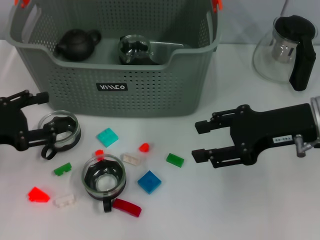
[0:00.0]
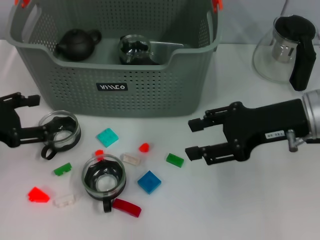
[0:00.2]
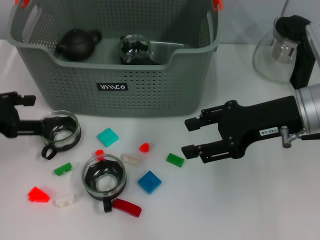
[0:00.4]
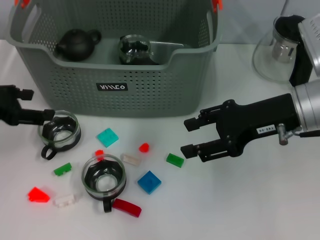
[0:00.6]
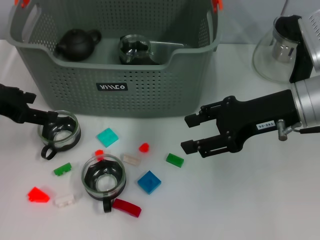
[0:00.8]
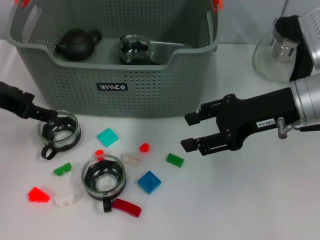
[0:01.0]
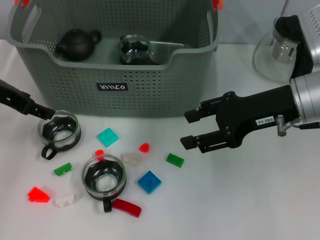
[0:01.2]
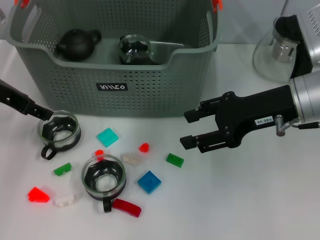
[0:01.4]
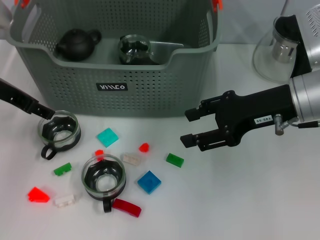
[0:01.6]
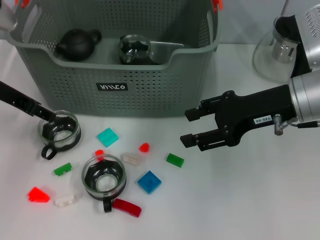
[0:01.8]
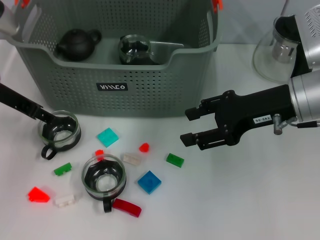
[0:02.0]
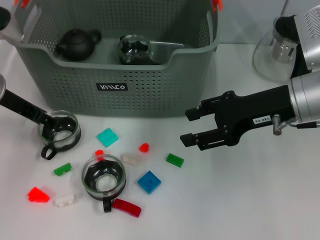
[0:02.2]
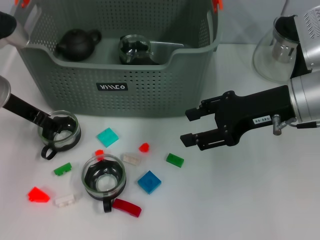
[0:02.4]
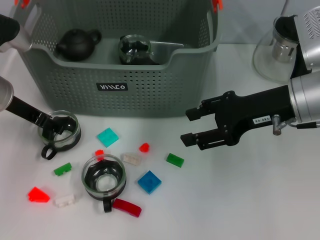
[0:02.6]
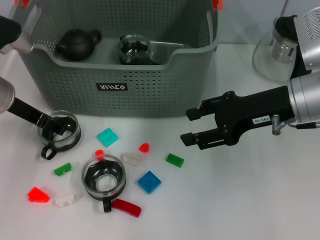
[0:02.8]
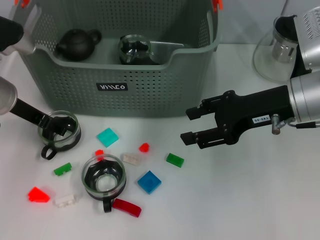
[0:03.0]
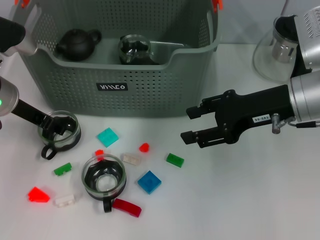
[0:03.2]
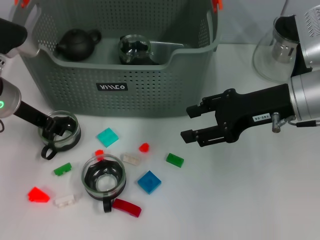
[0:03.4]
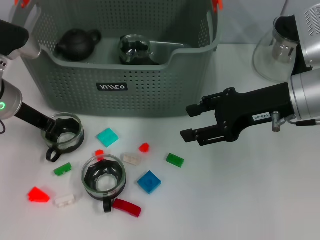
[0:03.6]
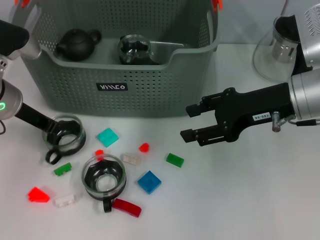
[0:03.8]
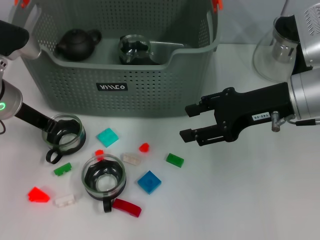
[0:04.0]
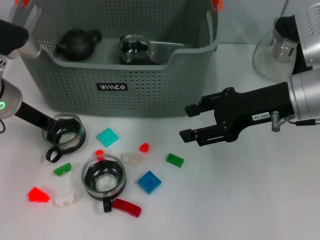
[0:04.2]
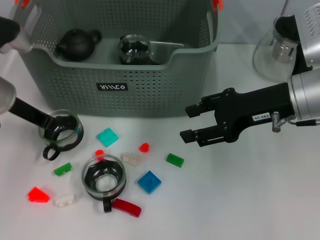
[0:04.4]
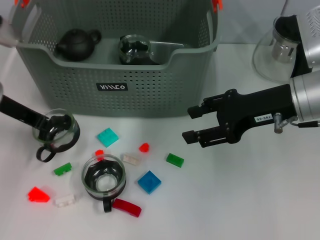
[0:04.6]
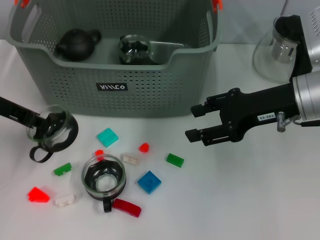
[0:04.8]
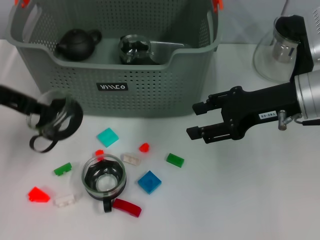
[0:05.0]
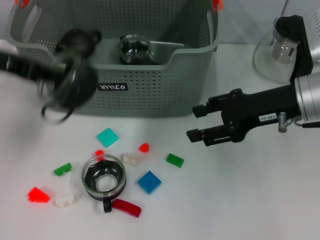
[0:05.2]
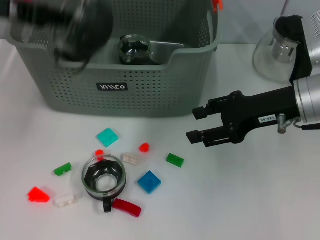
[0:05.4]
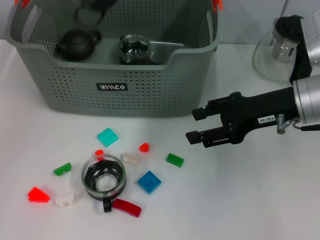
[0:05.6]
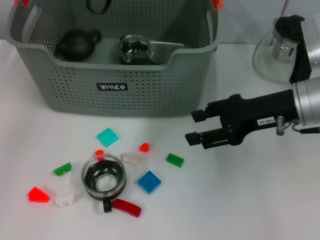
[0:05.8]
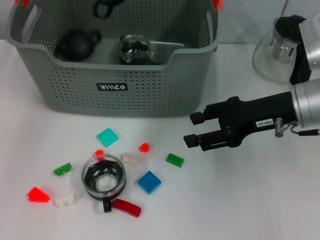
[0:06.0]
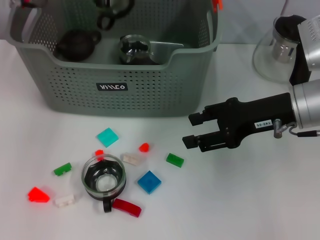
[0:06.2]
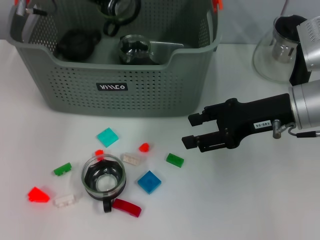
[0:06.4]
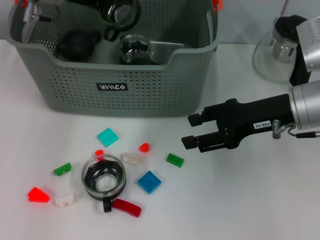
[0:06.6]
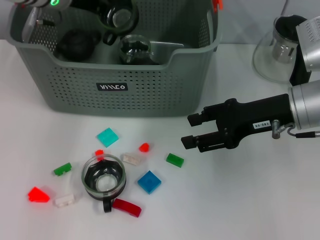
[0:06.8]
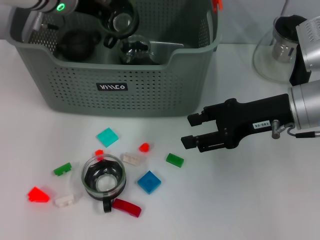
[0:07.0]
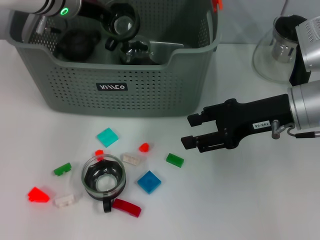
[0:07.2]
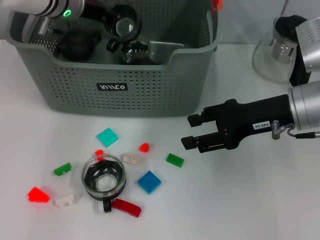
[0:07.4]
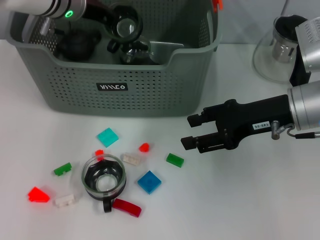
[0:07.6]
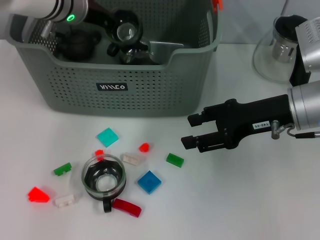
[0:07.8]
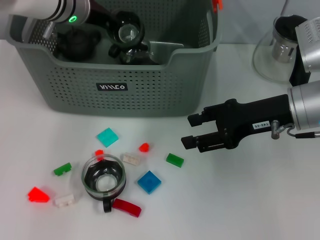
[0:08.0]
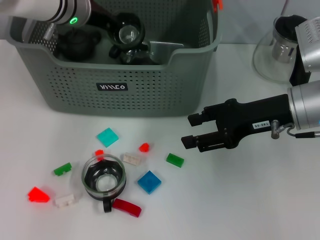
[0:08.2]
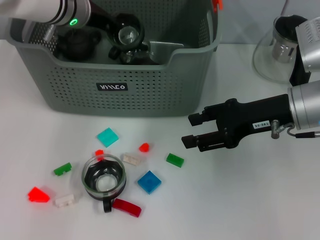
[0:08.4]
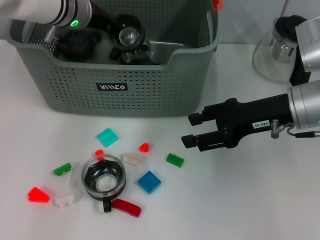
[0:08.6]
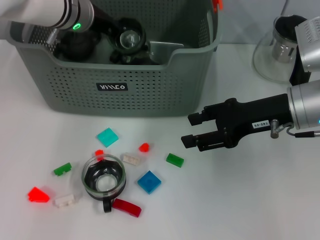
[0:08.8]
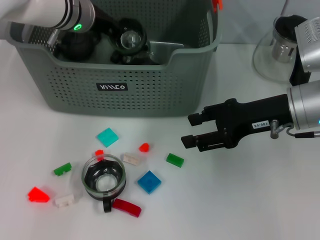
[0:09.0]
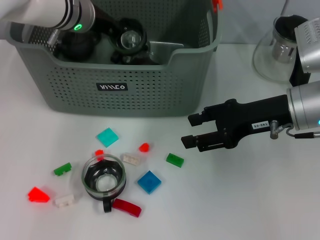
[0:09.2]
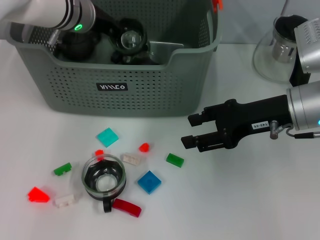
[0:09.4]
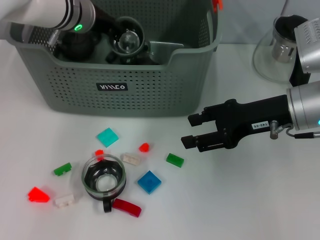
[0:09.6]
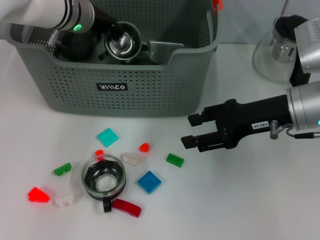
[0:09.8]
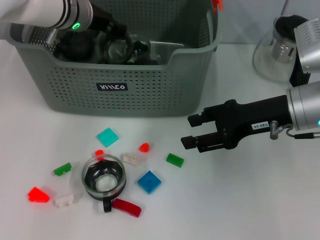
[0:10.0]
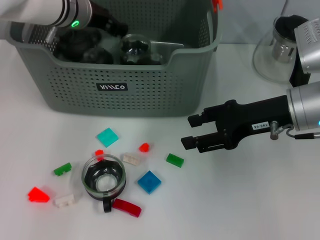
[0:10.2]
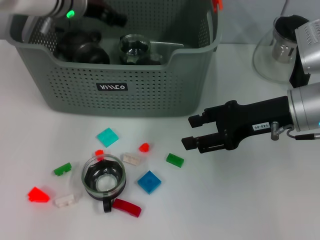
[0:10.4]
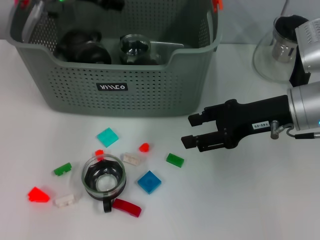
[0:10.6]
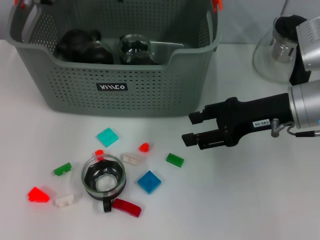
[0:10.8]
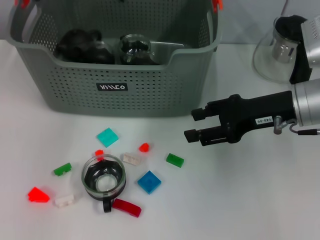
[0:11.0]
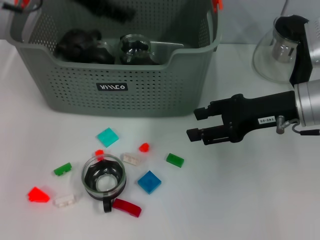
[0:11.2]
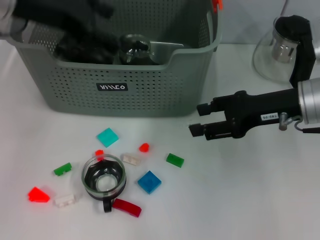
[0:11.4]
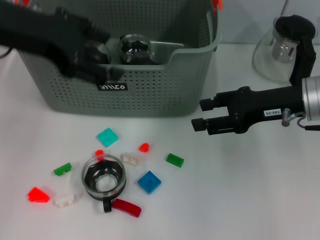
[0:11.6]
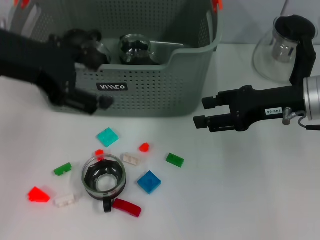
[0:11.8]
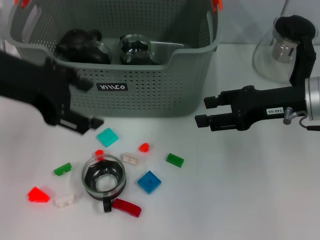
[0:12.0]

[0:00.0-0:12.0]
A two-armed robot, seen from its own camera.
Task of the whole recording: pick up the teacup on the table and place it into the storage bin, pick up the block on the table and place it into the storage bin.
Step, 0.0 to 4.0 s: Grasp the cup with left gripper.
Step, 4.2 to 10.6 s: Place the cup in the storage box with left gripper.
0.0 to 1.6 s: The left gripper heads forward, upward and to the right, covering approximately 15 cm.
1.6 to 3.0 s: The left gripper goes some 5 cm downward.
3.0 to 4.4 s: The left gripper closes up.
4.4 to 6.0 s: The left gripper shifts roughly 15 cm upward and forward.
6.0 to 7.6 s: The left gripper heads downward and to the right, covering about 10 cm.
7.6 to 9.0 s: There are only small adjustments of the grippers.
9.0 to 10.4 s: The left gripper opens up.
10.4 to 12.0 s: The left gripper travels backward by roughly 20 cm.

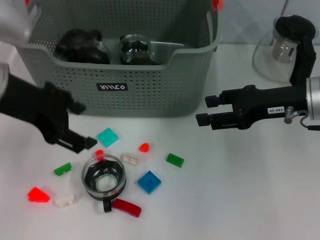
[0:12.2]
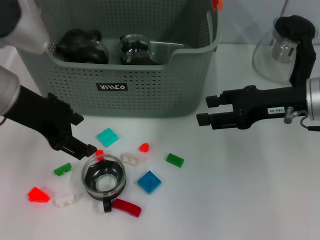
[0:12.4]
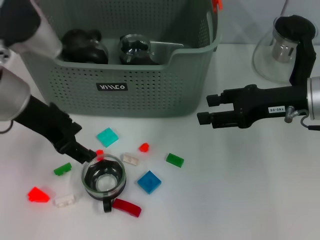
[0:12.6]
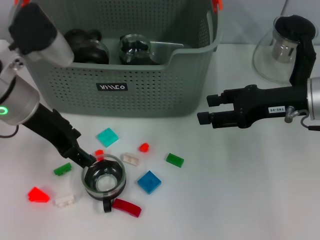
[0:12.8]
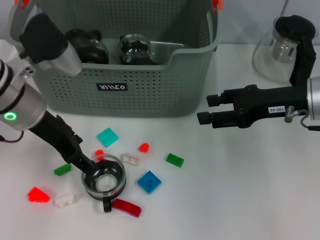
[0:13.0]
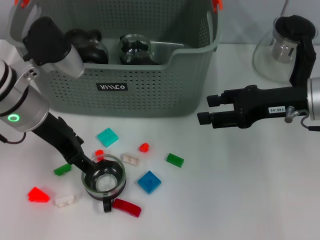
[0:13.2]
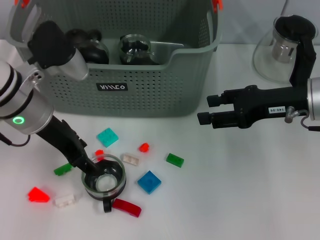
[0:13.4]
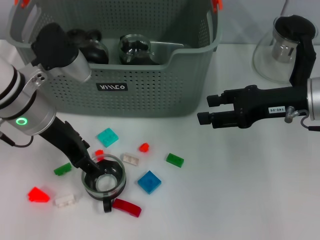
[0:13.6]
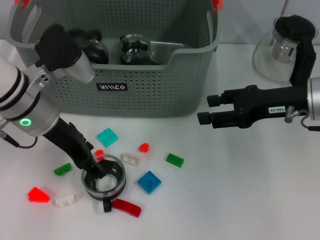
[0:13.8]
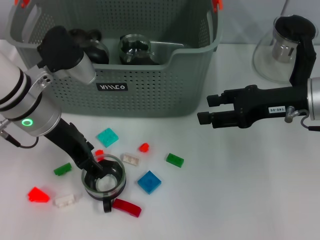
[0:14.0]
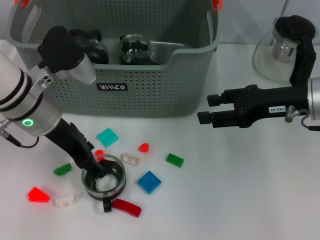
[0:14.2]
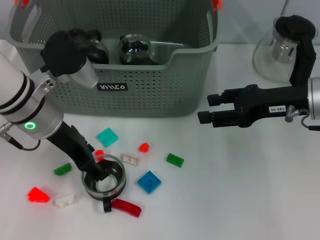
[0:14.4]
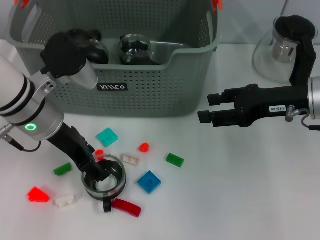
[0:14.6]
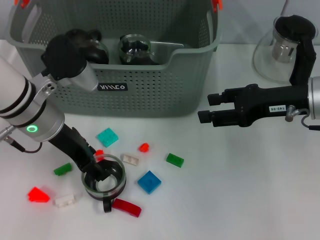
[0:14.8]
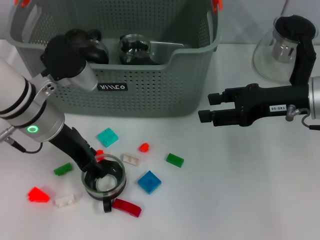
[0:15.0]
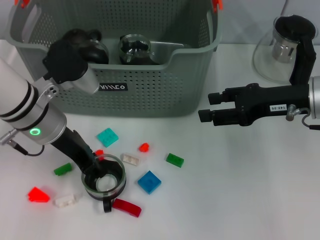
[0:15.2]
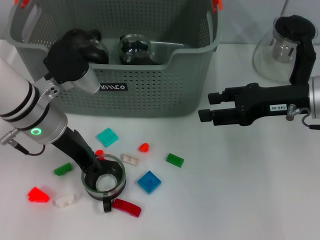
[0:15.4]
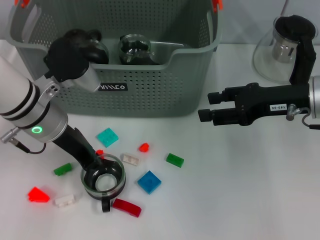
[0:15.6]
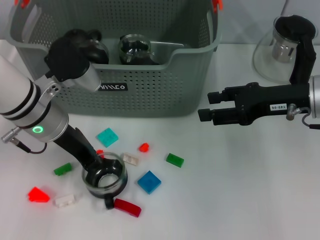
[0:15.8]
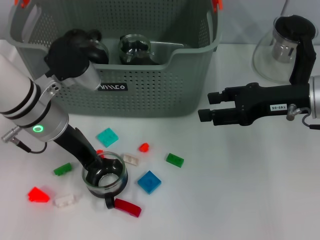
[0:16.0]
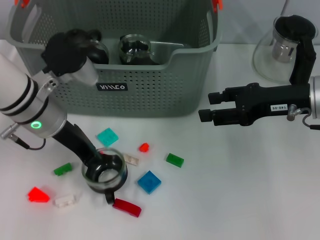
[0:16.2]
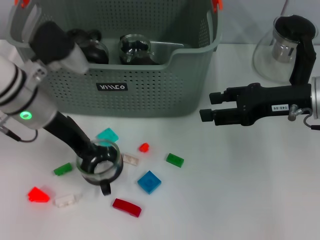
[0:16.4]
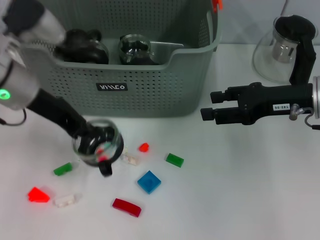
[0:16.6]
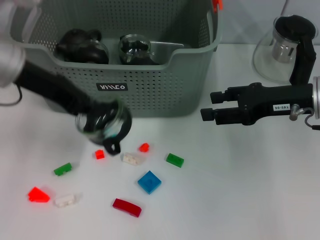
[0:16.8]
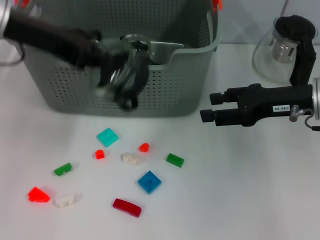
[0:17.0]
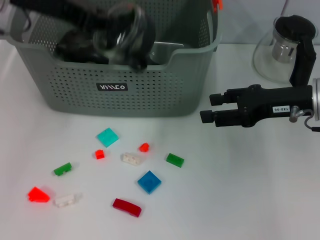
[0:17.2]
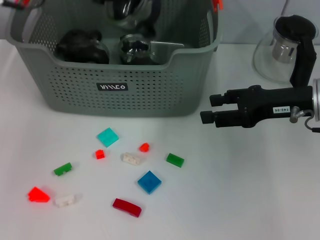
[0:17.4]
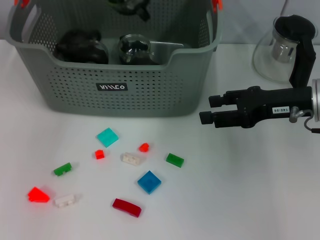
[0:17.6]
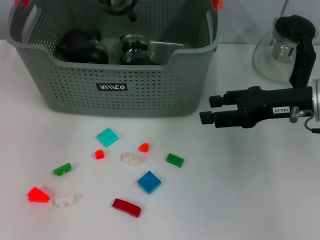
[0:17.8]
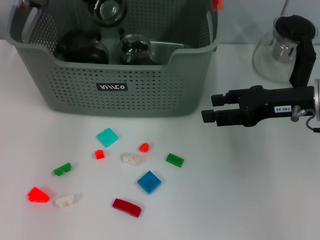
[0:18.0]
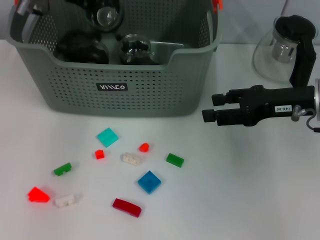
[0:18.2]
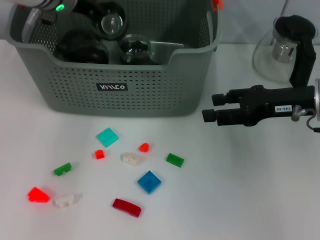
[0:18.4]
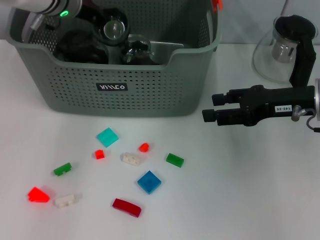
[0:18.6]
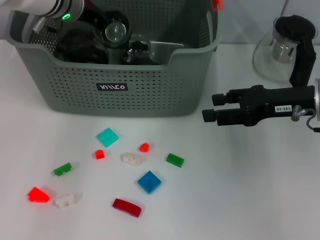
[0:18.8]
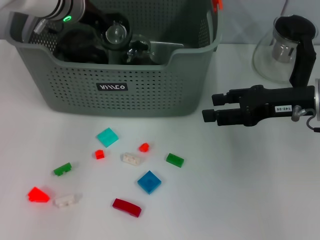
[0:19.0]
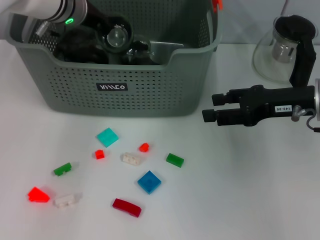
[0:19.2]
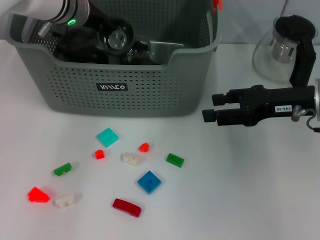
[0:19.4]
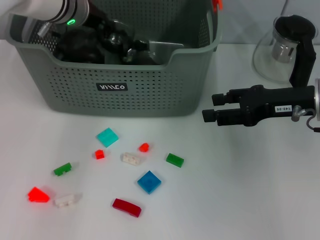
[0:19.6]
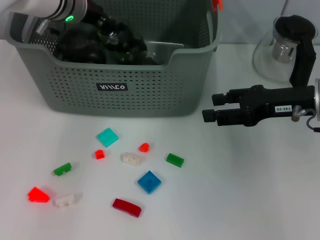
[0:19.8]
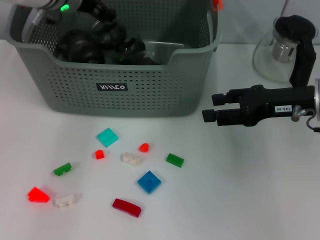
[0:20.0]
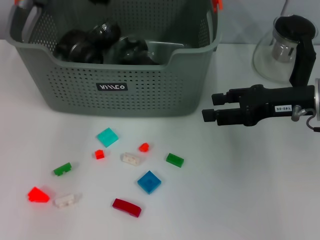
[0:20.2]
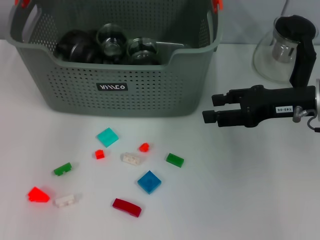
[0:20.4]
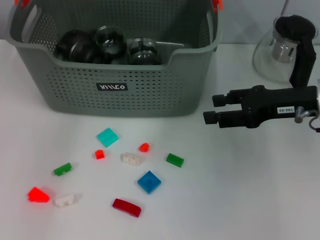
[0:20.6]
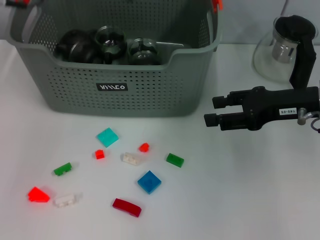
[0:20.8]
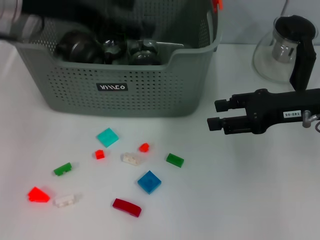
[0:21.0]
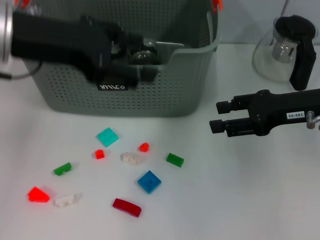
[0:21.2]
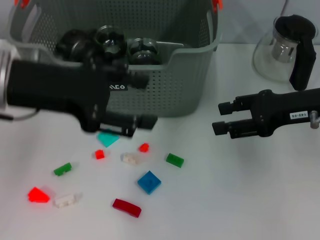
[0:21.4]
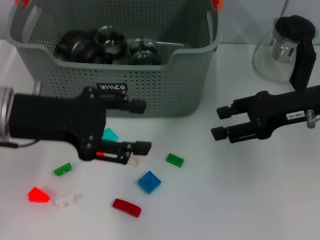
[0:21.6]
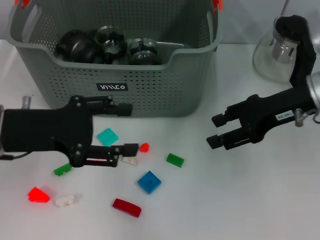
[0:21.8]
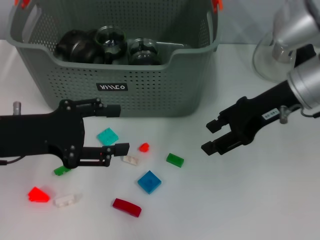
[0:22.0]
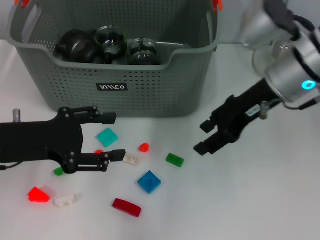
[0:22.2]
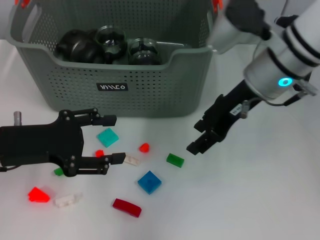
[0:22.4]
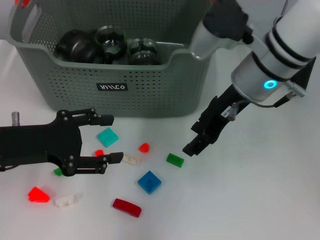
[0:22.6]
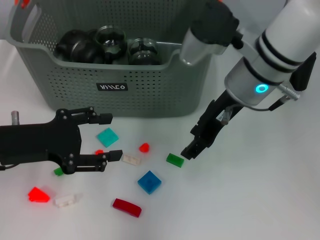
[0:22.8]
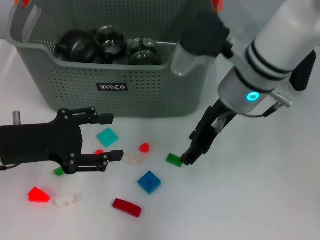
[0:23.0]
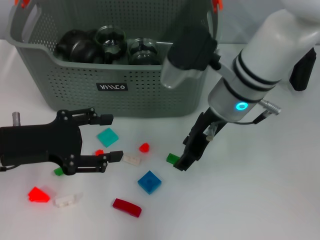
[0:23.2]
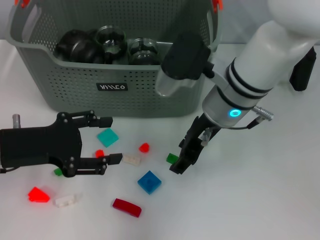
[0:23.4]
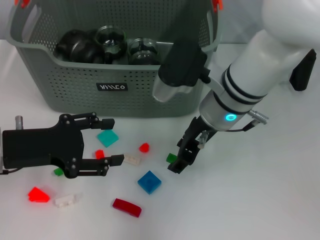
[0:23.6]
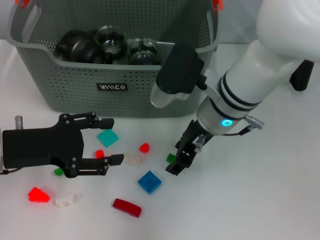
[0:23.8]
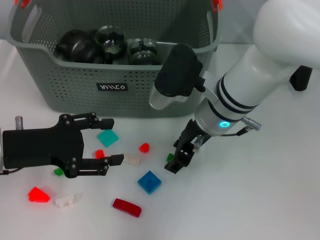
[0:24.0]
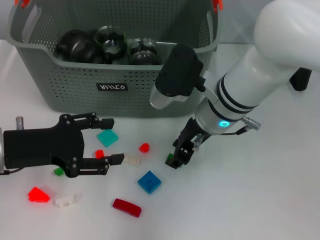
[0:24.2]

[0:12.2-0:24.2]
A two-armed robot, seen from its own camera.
Task of the whole recording: pick up the teacup on the table and place it into the storage bin, pick up the block on the table and place it into the storage bin.
Step, 12.2 to 15.8 s: Grasp the cup with left gripper.
Step, 16.0 to 20.6 s: Place the cup in the storage box with left gripper.
12.2 to 13.8 s: The left gripper heads downward, covering approximately 10 cm.
13.8 to 15.2 s: The grippers stay close to where they were, moving slightly.
15.2 to 16.6 s: The left gripper shifts about 5 cm upward, and closes.
16.6 to 18.2 s: The left gripper moves forward, approximately 15 cm.
18.2 to 19.8 s: There are only small adjustments of the grippers.
19.8 to 21.2 s: The left gripper is displaced backward and upward by roughly 20 cm, and opens.
21.2 to 22.6 s: The left gripper is displaced downward by some 15 cm; the right gripper is displaced to the left by approximately 15 cm.
22.6 to 24.2 s: The right gripper moves downward, approximately 5 cm.
